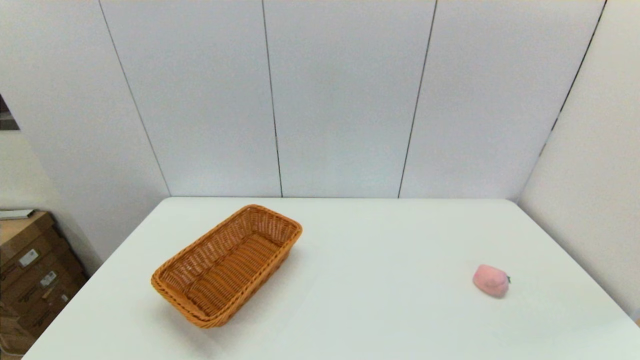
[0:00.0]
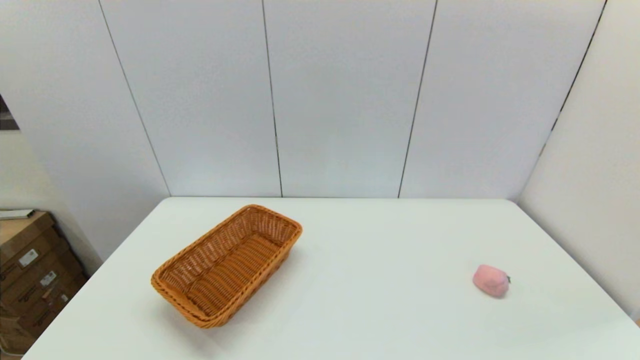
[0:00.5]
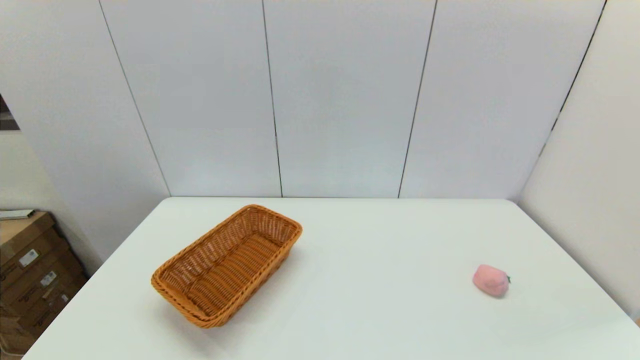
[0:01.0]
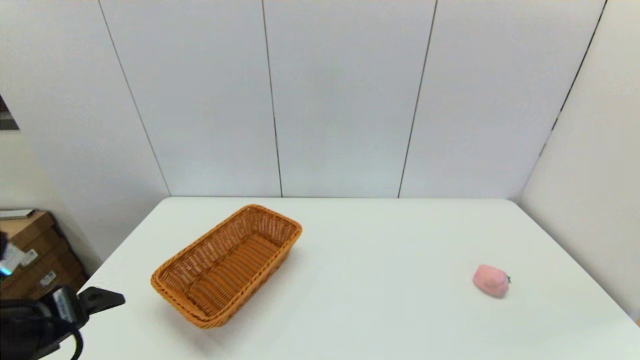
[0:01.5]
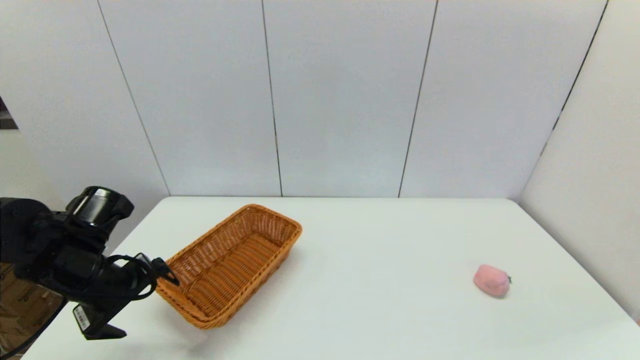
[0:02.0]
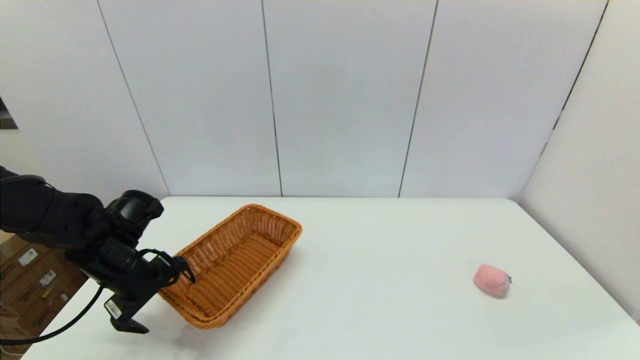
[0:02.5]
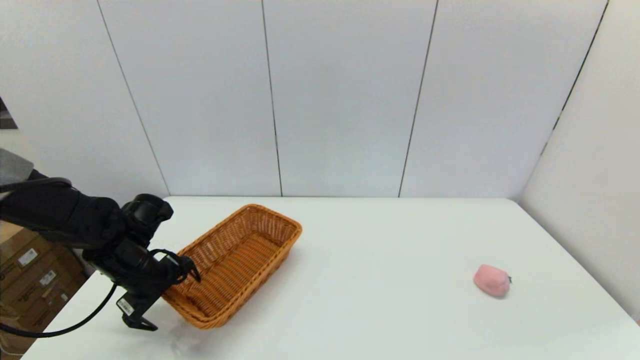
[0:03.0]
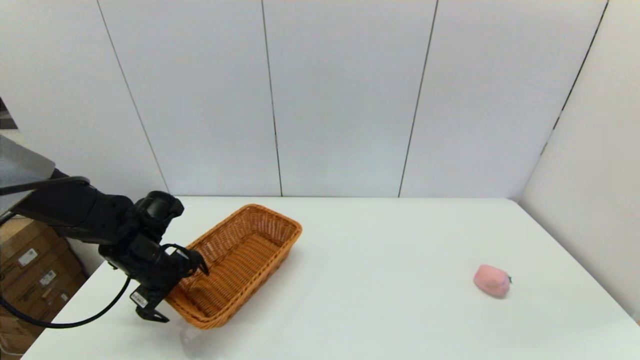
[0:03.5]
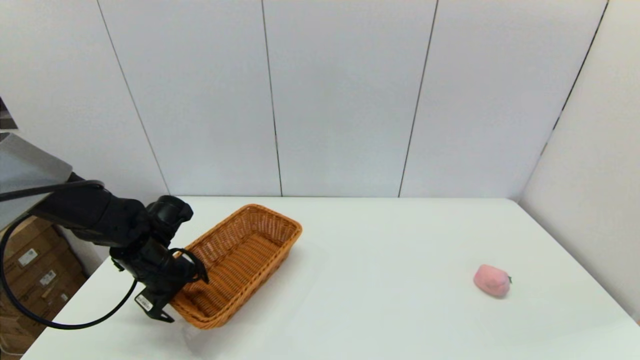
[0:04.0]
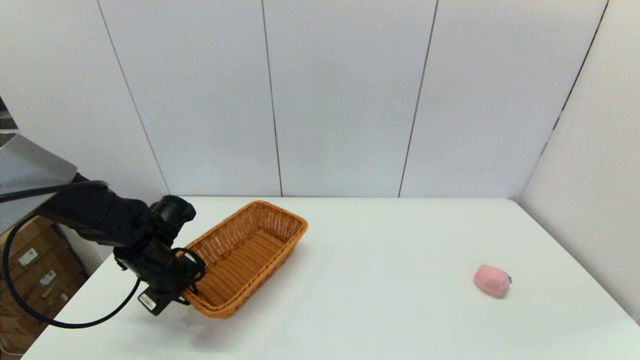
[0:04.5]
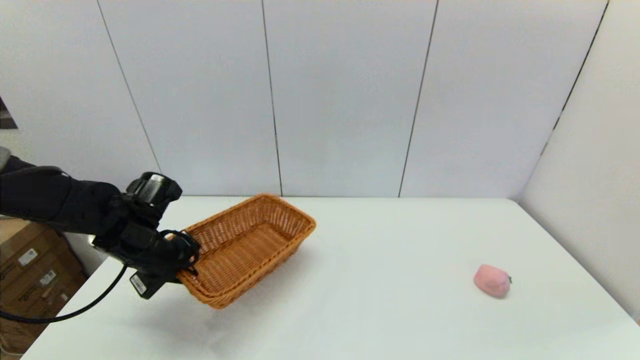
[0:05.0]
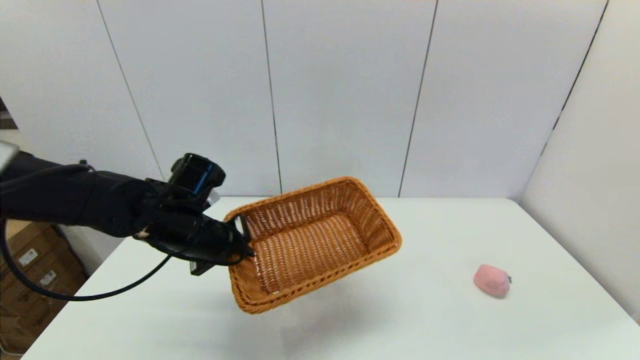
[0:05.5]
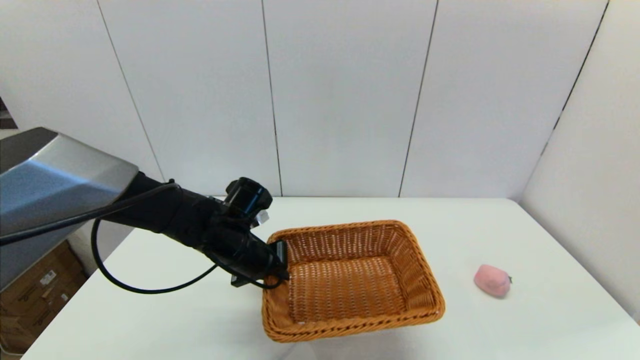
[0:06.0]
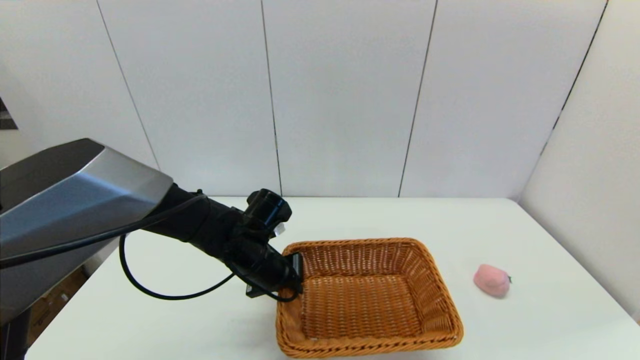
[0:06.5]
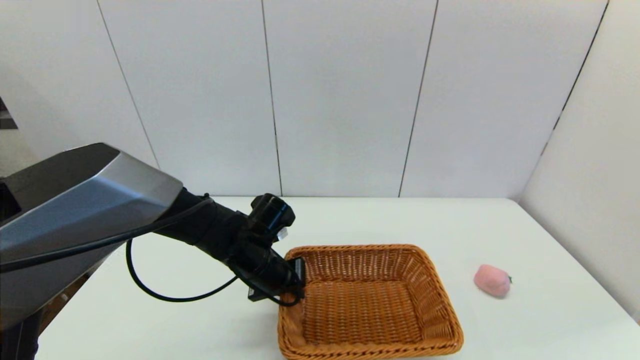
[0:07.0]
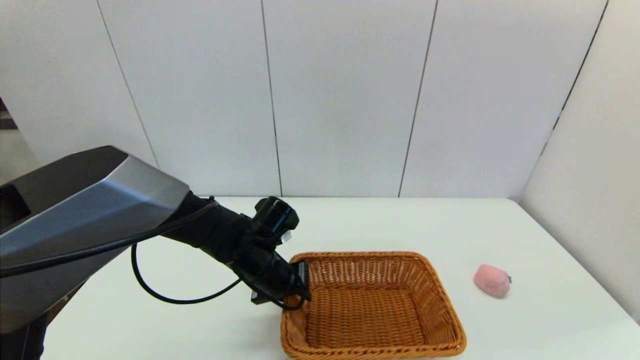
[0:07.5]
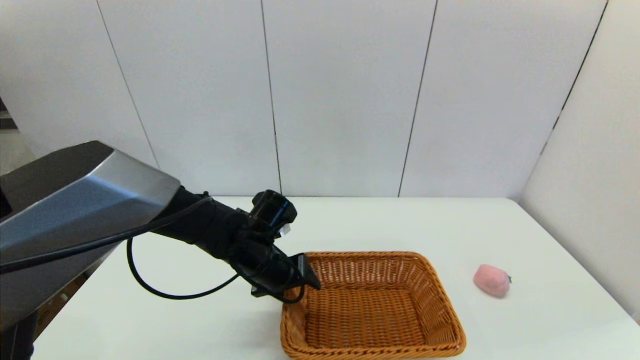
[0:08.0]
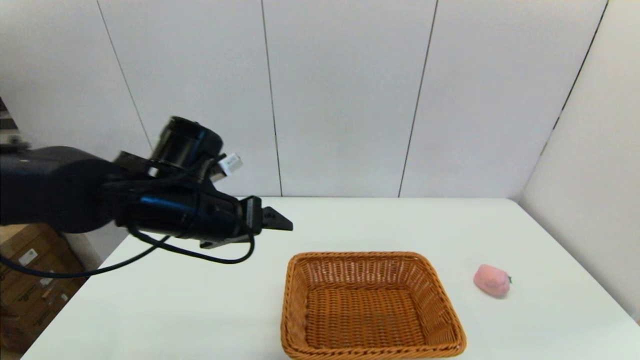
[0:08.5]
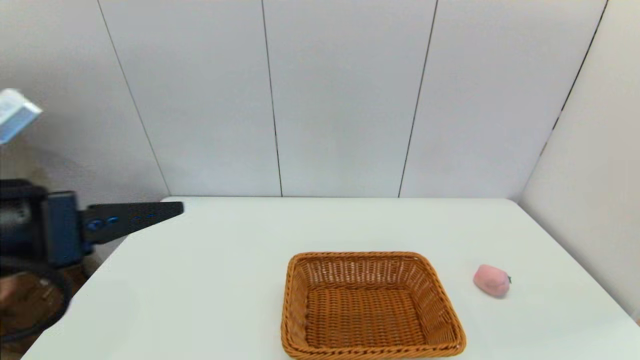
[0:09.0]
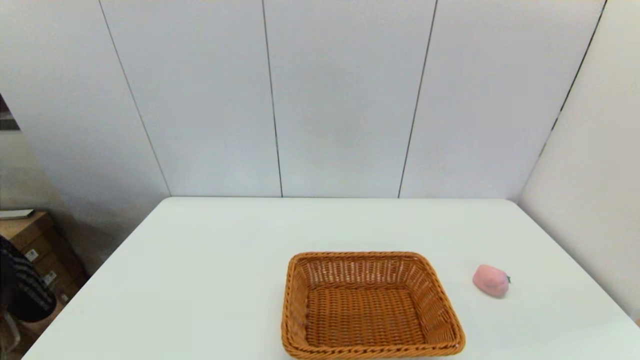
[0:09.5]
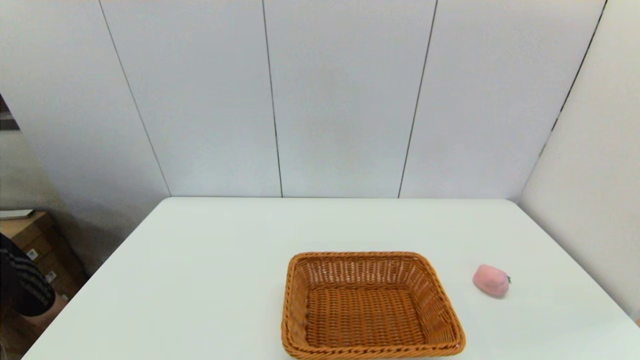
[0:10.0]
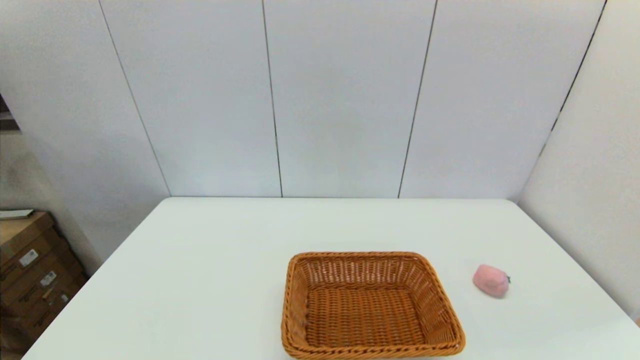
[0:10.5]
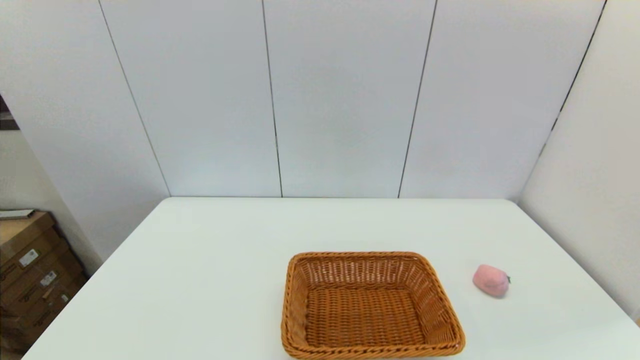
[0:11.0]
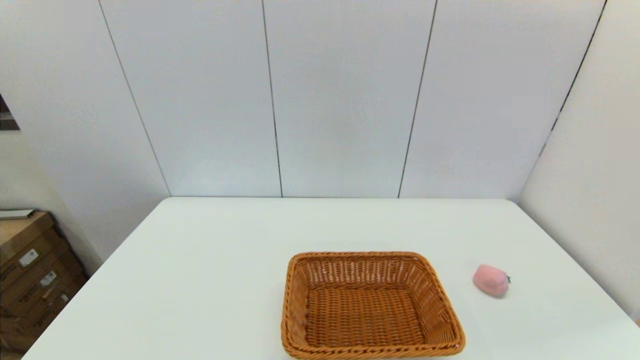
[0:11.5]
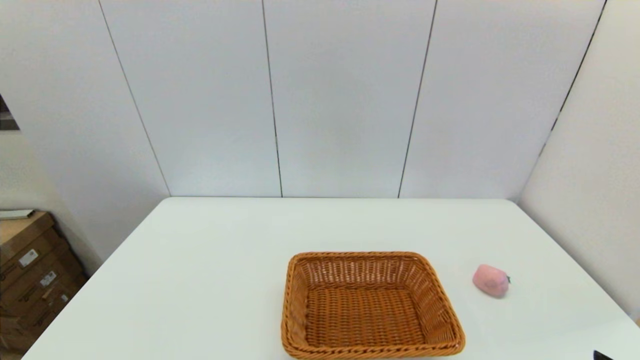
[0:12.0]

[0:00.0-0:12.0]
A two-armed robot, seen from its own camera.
Step, 0:00.0 to 0:04.5: Grasp the light basket with the left gripper.
Step, 0:05.0 to 0:08.0: Place the light basket on the middle of the table with the left gripper.
0:00.0 to 0:02.0: The left gripper heads forward, covering approximately 25 cm.
0:02.0 to 0:04.0: The left gripper is displaced forward and downward by about 10 cm.
0:04.0 to 0:06.0: The left gripper shifts some 15 cm to the right, and closes up.
0:06.0 to 0:08.0: The left gripper opens its fingers.
0:08.0 to 0:10.0: The left gripper moves backward and to the left, approximately 40 cm.
0:10.0 to 0:12.0: The left gripper is displaced downward by about 10 cm.

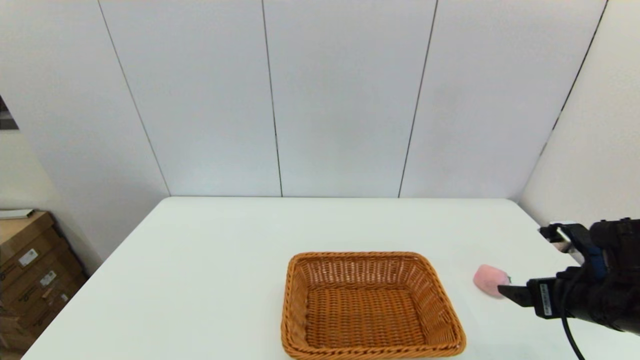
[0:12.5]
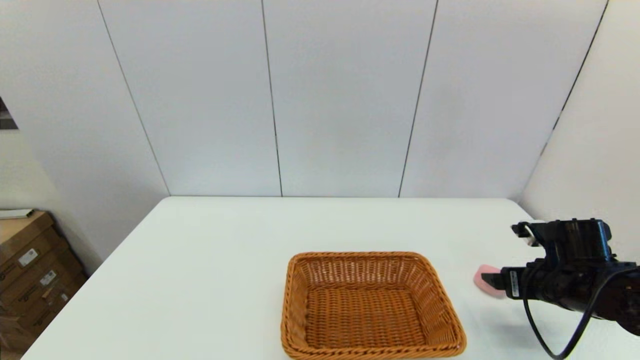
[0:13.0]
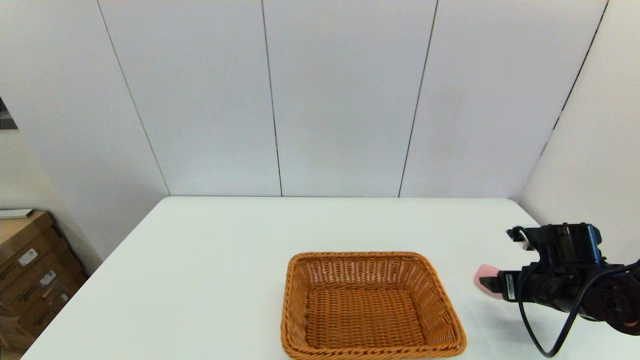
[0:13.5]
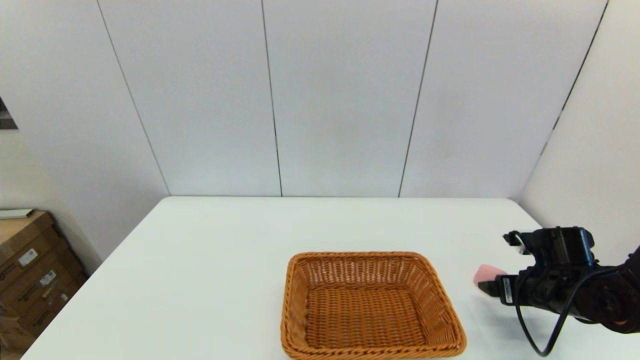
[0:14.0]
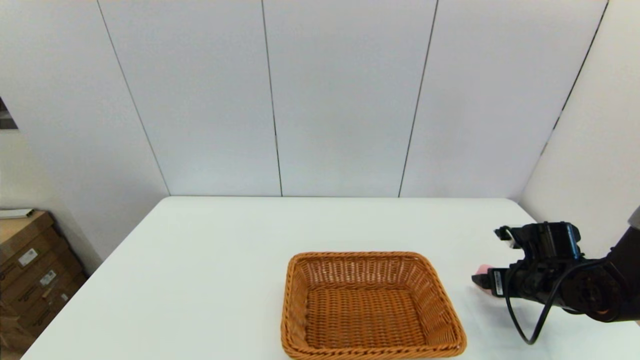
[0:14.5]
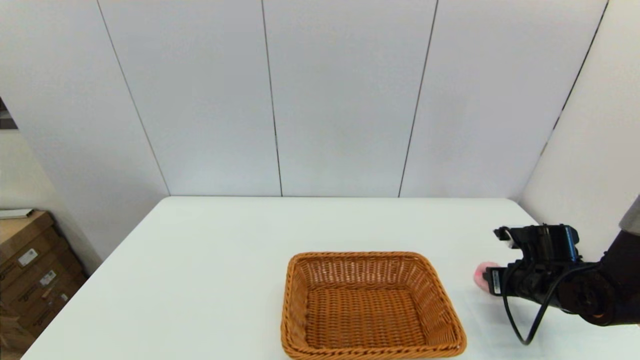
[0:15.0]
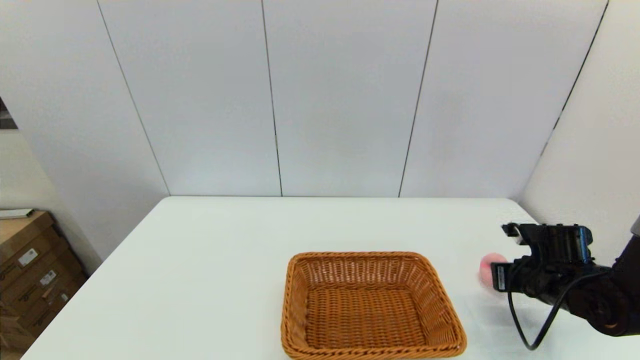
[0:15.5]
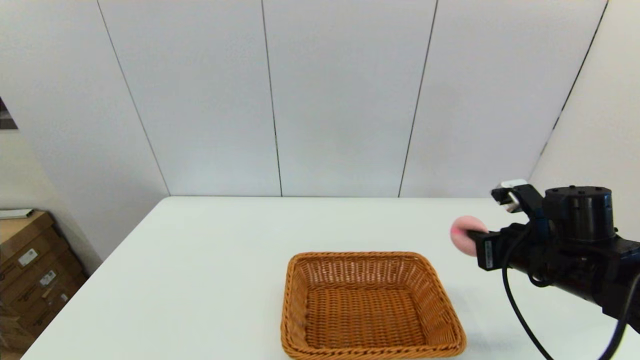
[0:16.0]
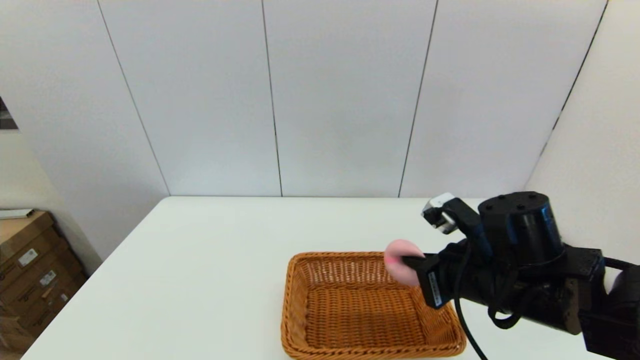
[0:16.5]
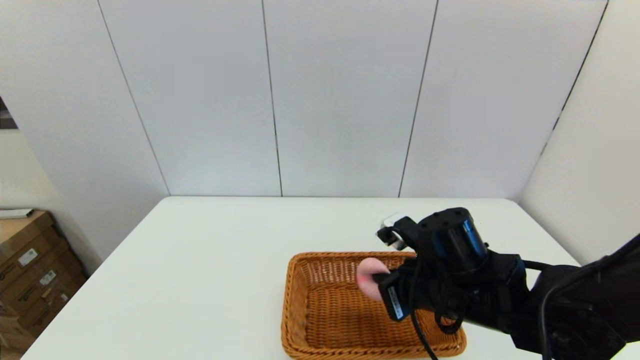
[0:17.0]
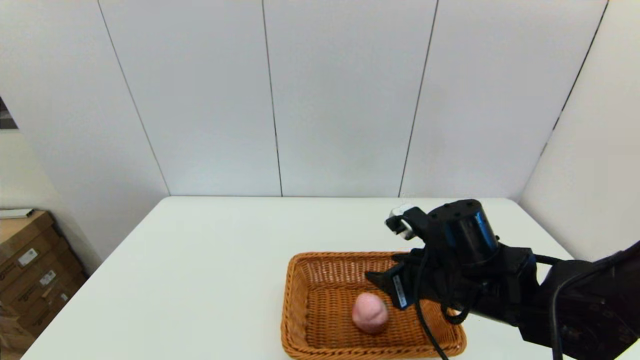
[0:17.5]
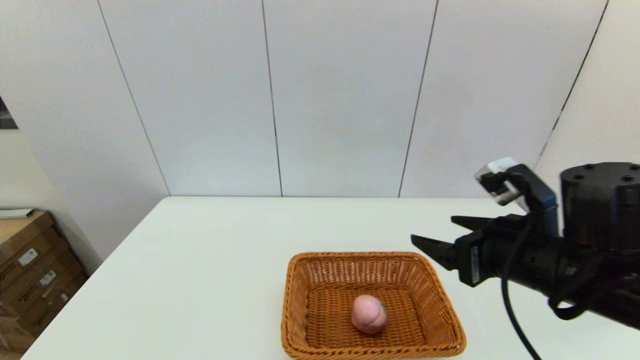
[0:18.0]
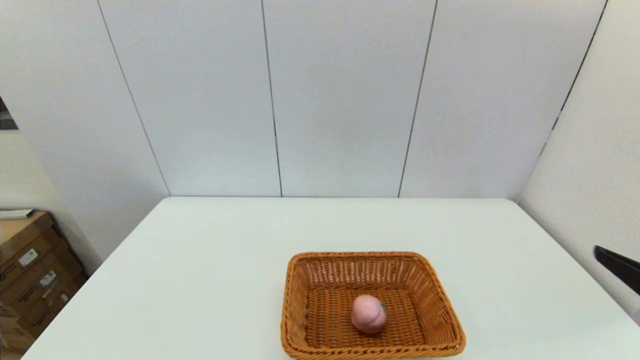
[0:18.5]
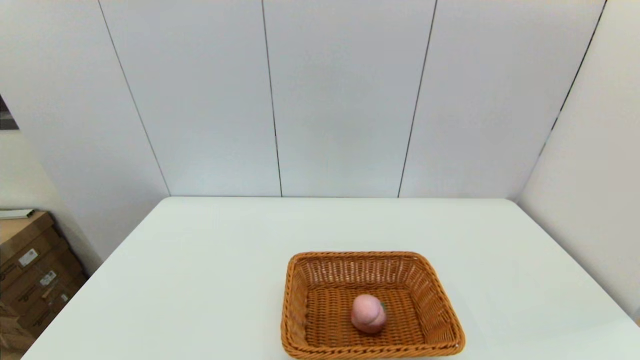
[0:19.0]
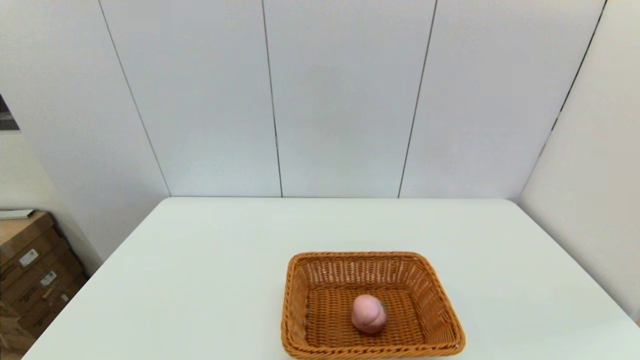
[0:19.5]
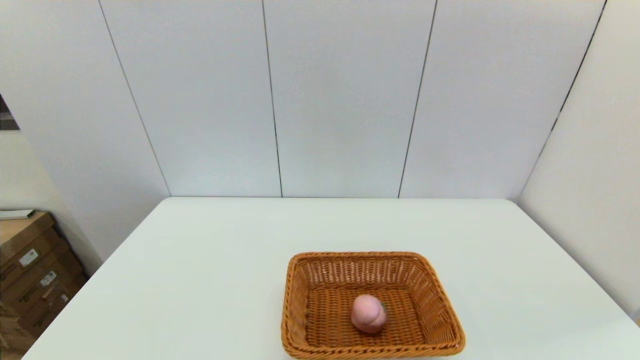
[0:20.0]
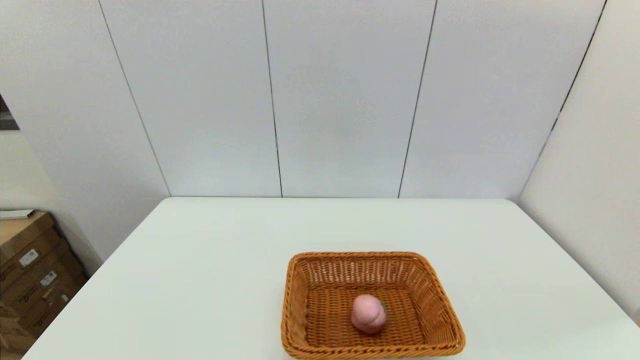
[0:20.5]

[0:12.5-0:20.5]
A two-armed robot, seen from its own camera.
Step, 0:12.5 to 0:15.0: Grasp the peach with the right gripper.
Step, 0:15.5 to 0:17.0: Place the peach into the light basket with the right gripper.
0:12.5 to 0:14.5: The right gripper shifts about 10 cm forward and downward.
0:14.5 to 0:16.5: The right gripper goes about 20 cm to the left, upward and backward, and closes its fingers.
0:16.5 to 0:18.5: The right gripper moves backward, to the right and upward, some 20 cm, and opens up.
